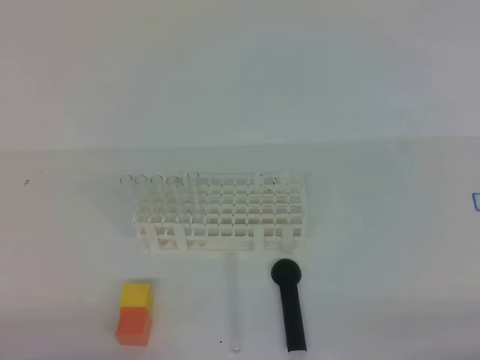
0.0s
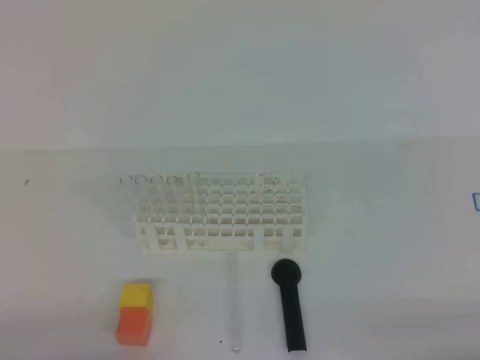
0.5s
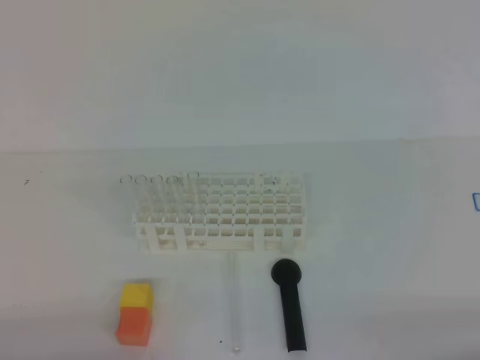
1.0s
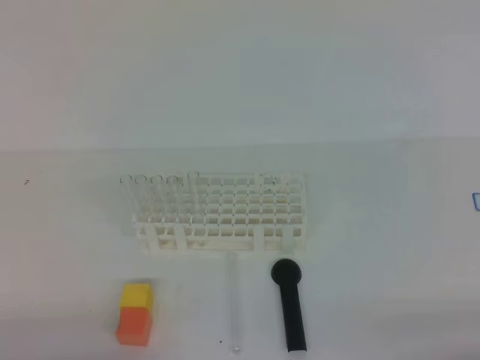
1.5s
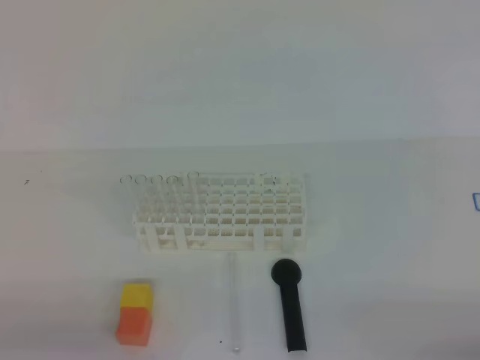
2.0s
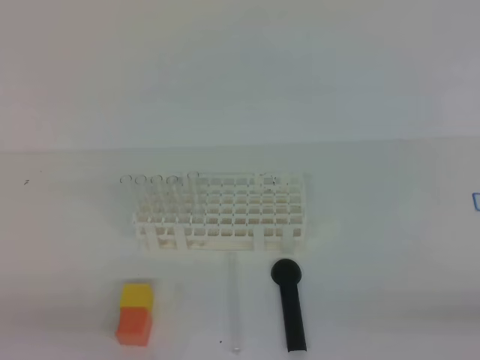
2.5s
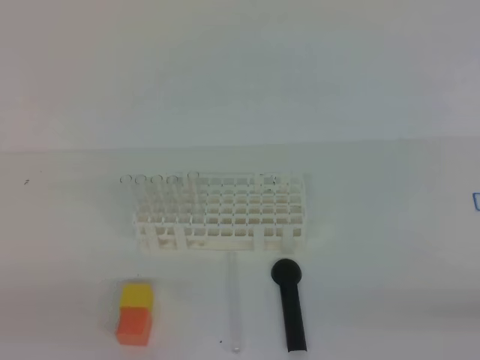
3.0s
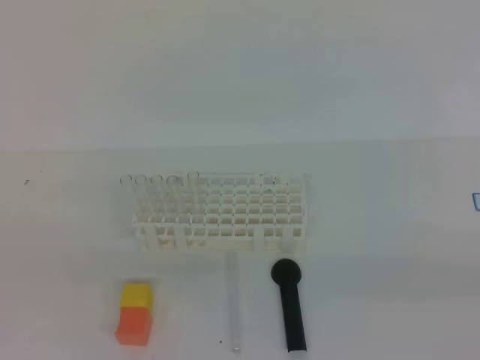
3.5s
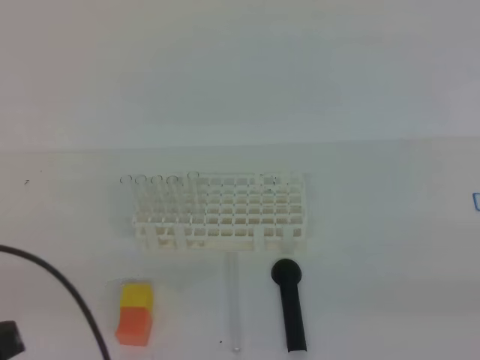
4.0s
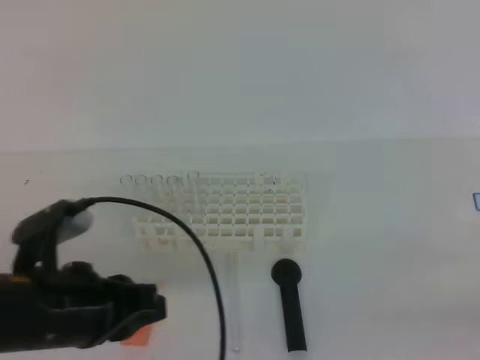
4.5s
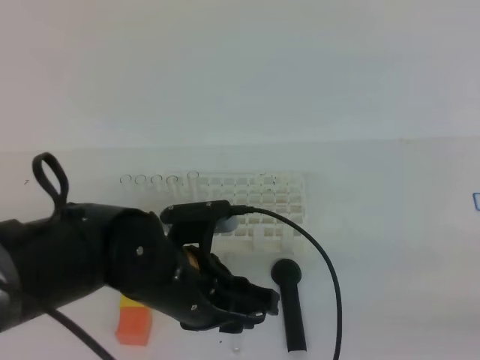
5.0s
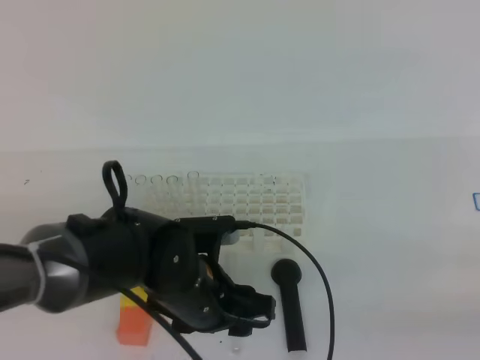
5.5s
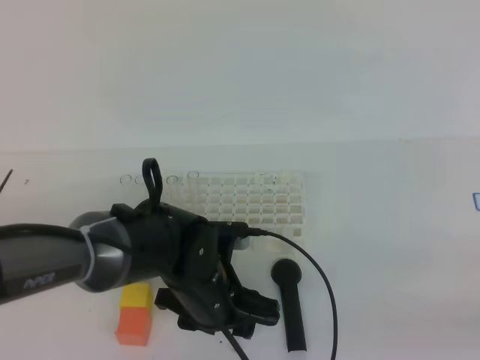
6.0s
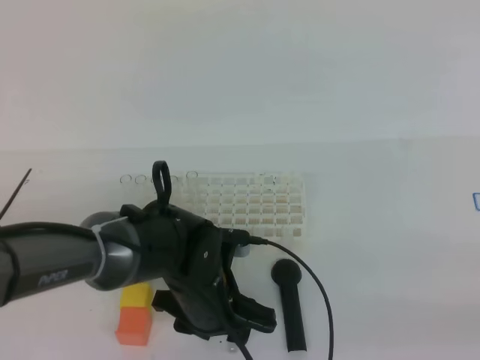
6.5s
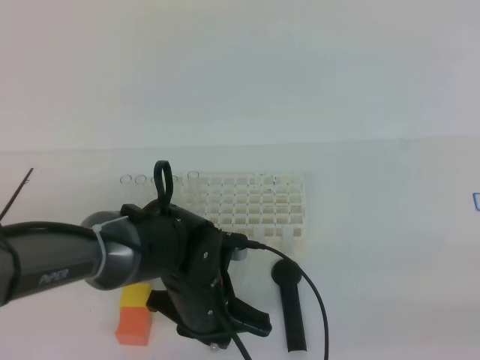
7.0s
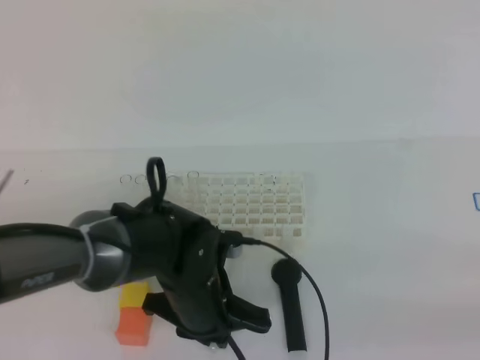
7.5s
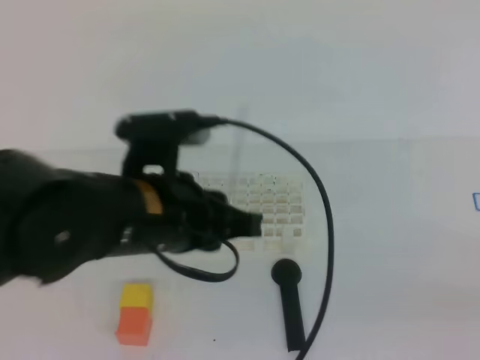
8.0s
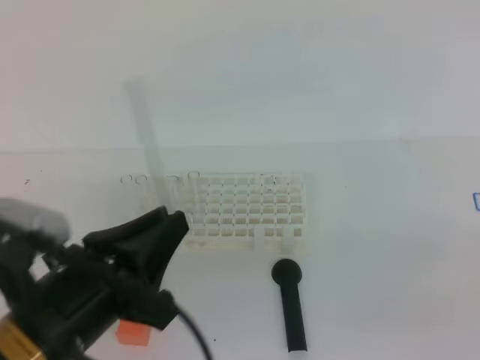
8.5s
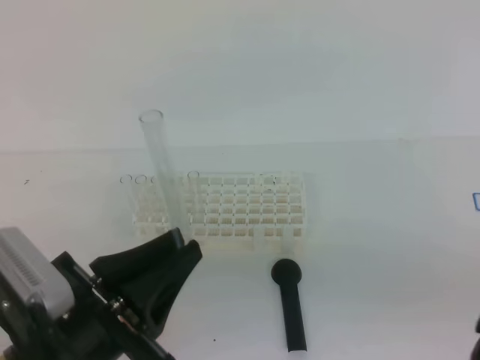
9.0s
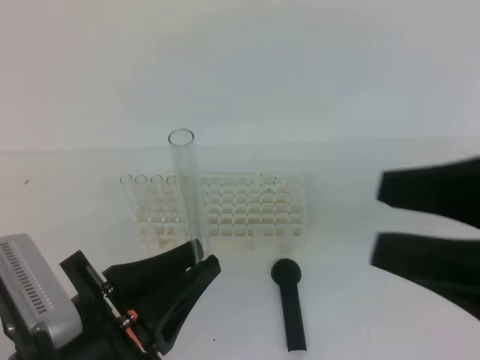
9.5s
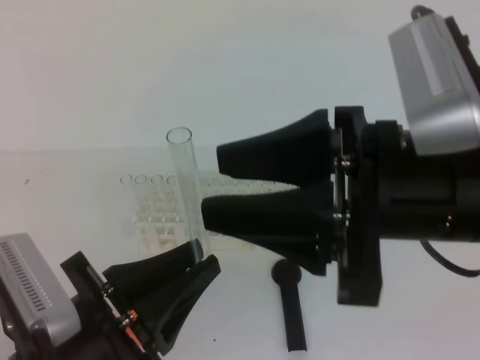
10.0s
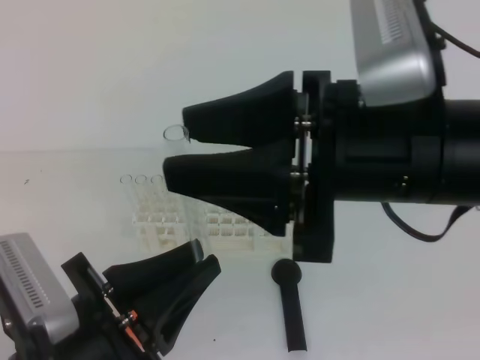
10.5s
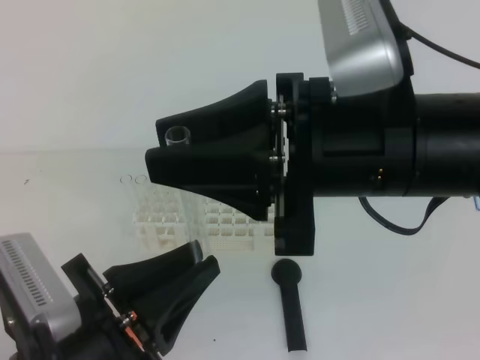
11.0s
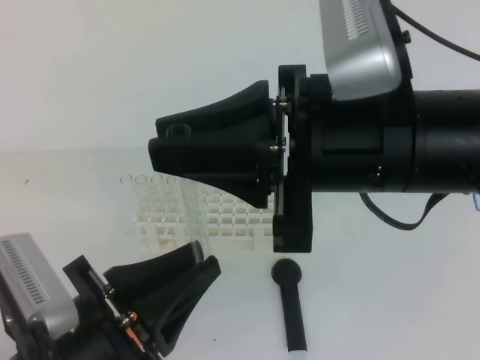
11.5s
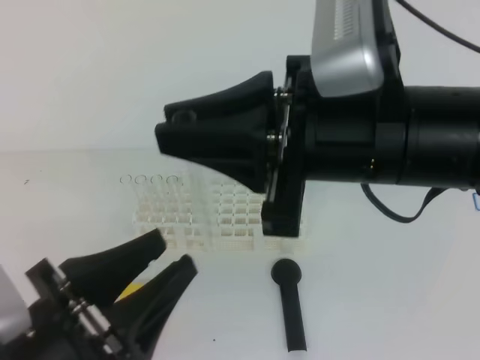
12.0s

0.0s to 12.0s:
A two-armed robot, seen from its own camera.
2.0s to 4.0s: The left gripper heads upward, covering some 10 cm.
4.0s to 6.0s: The left gripper goes roughly 30 cm to the right, forward and downward, and opens up.
6.0s to 8.0s: The left gripper travels upward by approximately 15 cm, and closes.
8.0s to 10.0s: The left gripper is displaced backward and to the left by approximately 15 cm, while the right gripper heads to the left and forward, covering some 25 cm, and opens.
10.0s to 12.0s: The left gripper opens, while the right gripper shifts by roughly 5 cm, and closes its fingers.

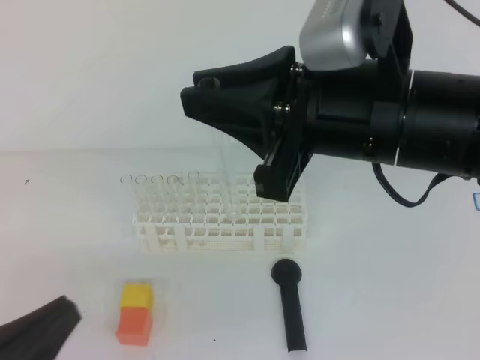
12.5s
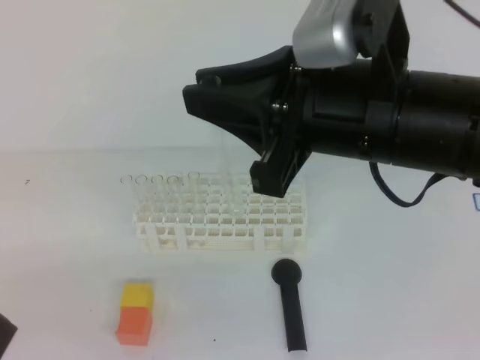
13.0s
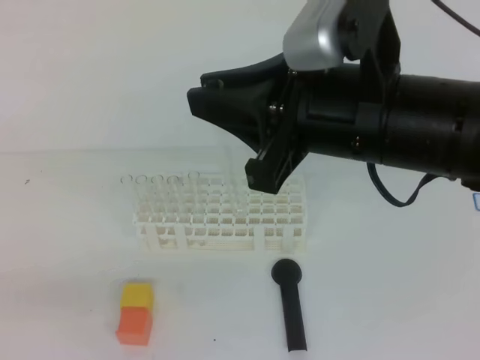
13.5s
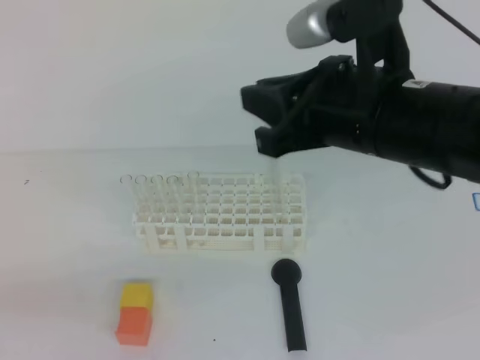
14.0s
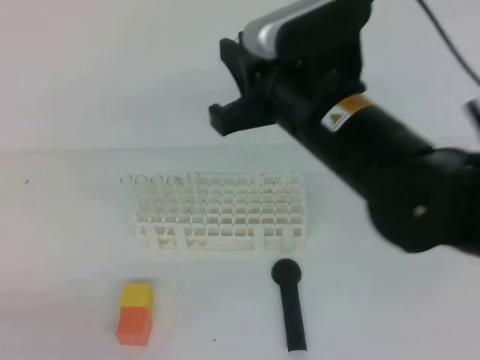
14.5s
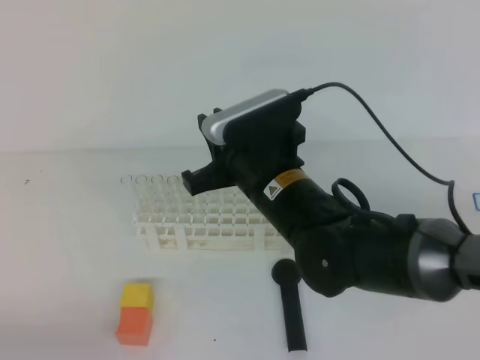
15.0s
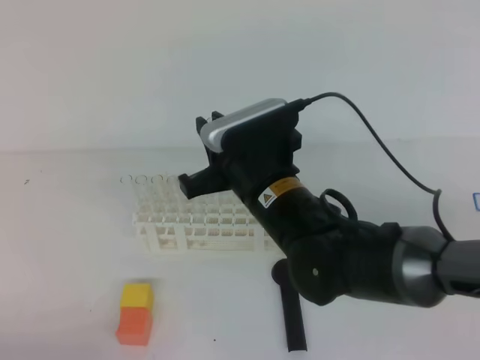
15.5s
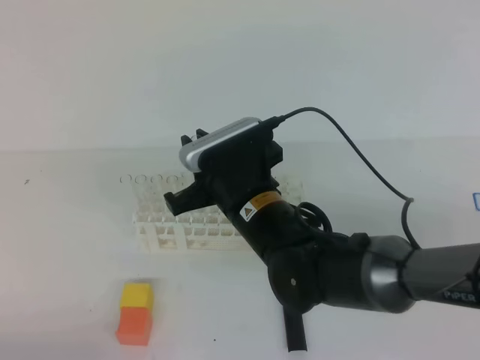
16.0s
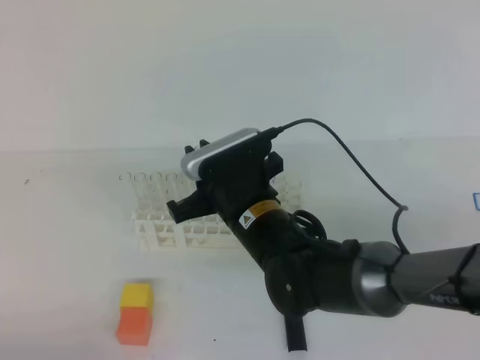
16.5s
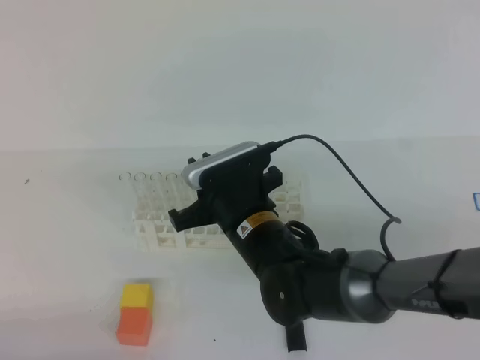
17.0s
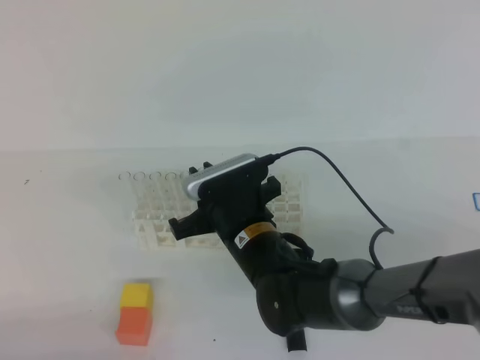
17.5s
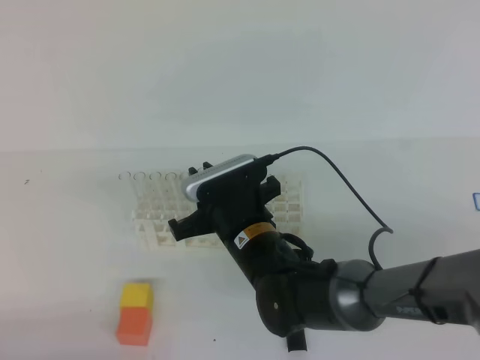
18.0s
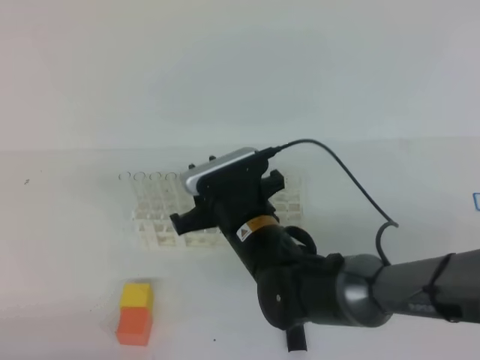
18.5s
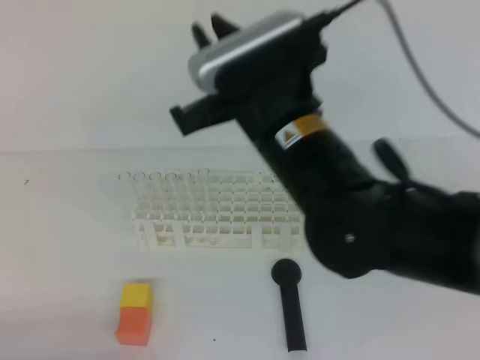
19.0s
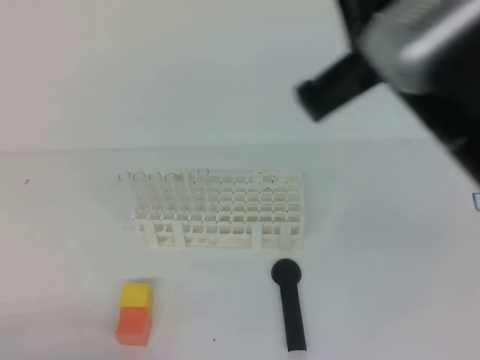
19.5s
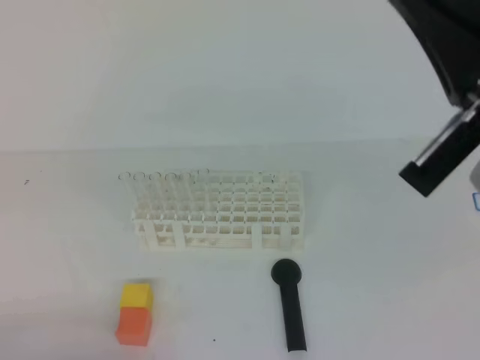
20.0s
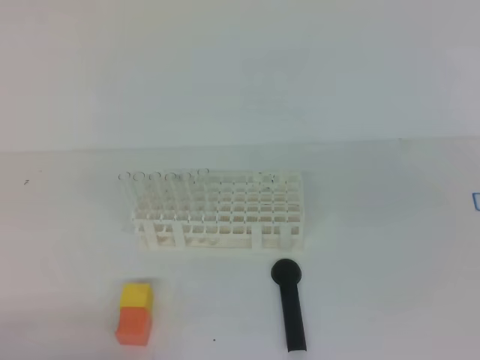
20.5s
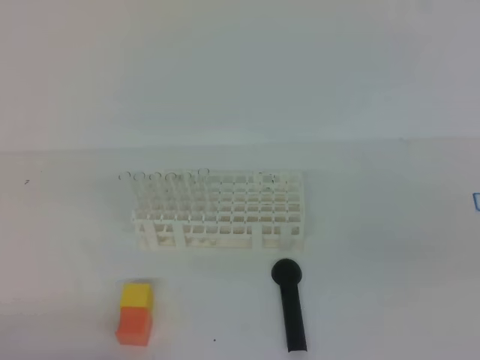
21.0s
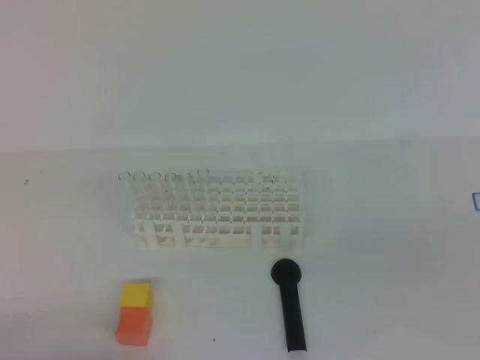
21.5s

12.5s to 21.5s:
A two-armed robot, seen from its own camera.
12.5s to 14.5s: The left gripper goes approximately 5 cm to the left. The right gripper travels forward by some 5 cm.
14.5s to 17.0s: The left gripper is displaced downward by roughly 5 cm. Meanwhile the right gripper heads downward and to the left, covering about 15 cm.
17.0s to 19.5s: The right gripper shifts about 30 cm upward, to the right and backward.
19.5s to 21.5s: The right gripper heads to the right, downward and backward, covering roughly 25 cm.

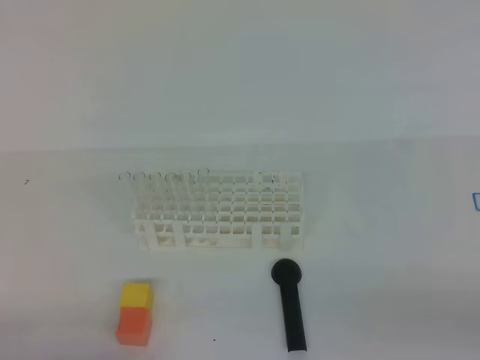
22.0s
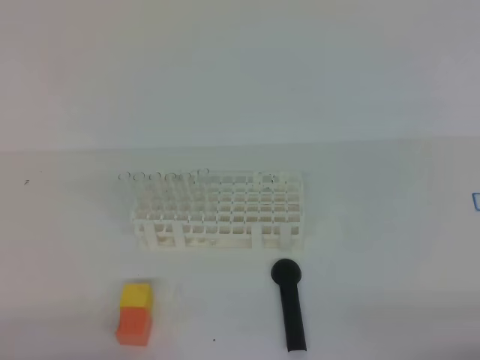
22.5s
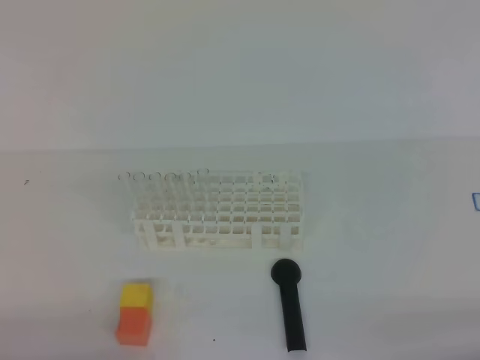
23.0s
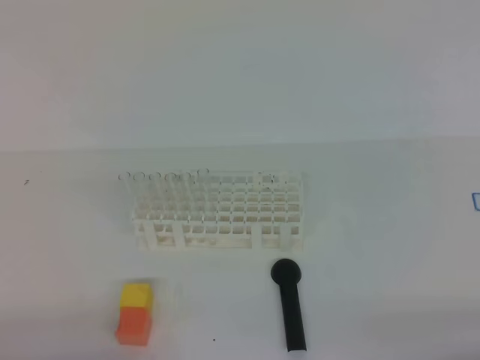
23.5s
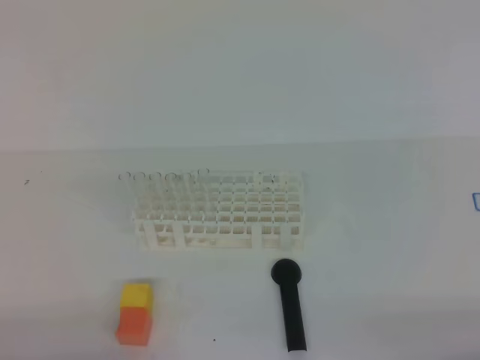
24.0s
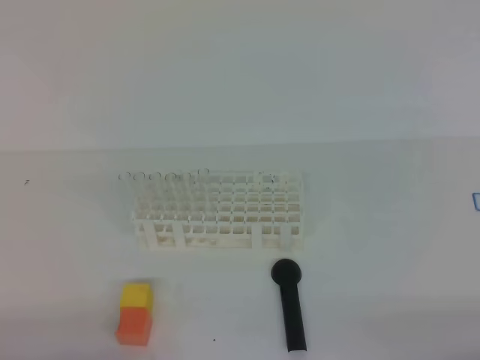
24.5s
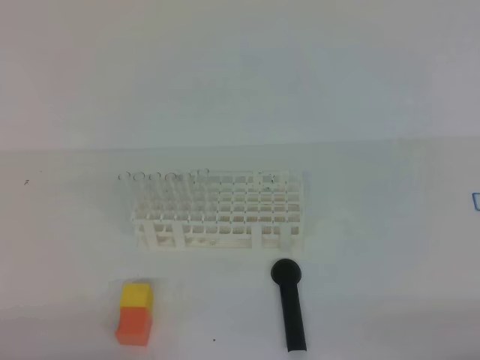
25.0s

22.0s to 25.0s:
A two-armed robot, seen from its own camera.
23.5s to 25.0s: Both grippers stay about where they are.

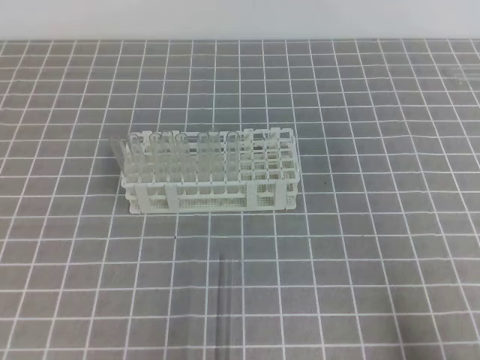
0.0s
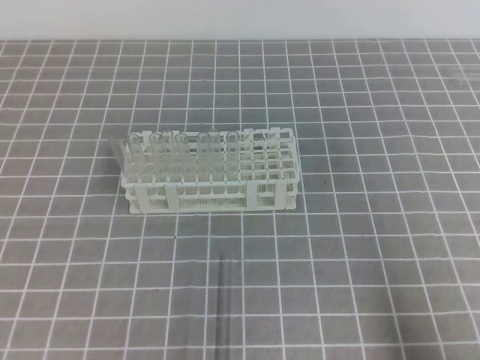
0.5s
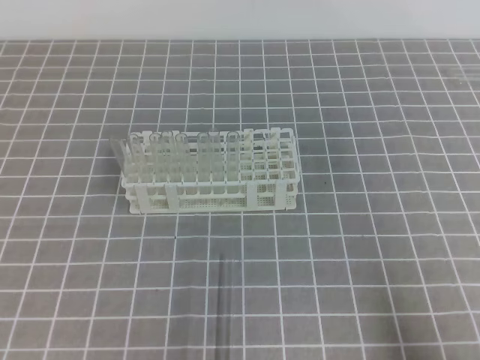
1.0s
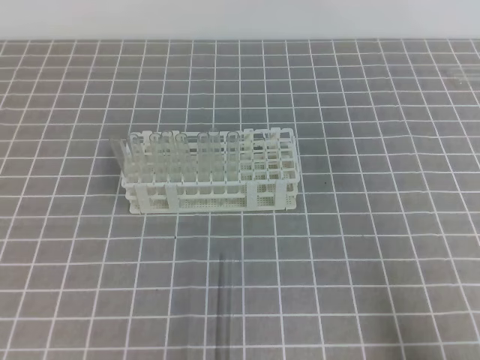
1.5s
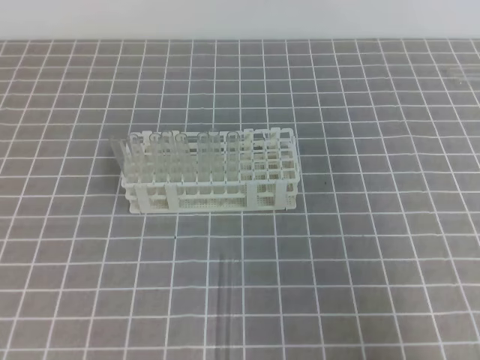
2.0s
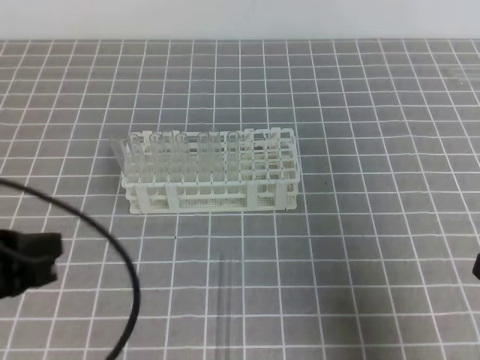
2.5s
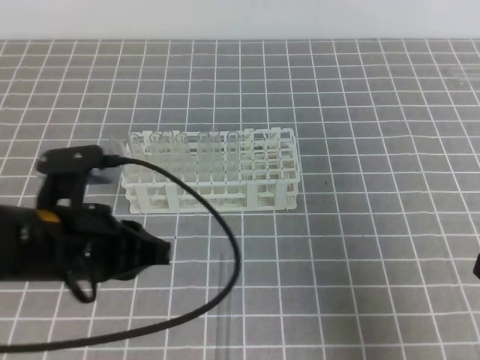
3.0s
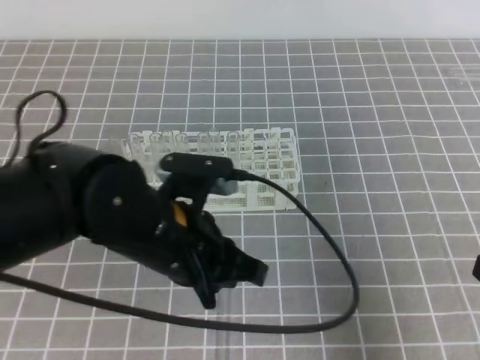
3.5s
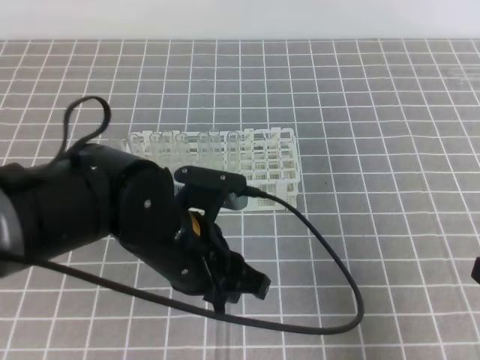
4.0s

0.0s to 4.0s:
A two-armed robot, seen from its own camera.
2.0s to 4.0s: The left gripper heads to the right and forward, covering roughly 25 cm, while the right gripper heads forward, covering approximately 5 cm.
